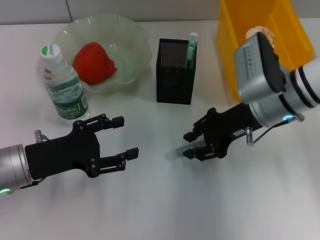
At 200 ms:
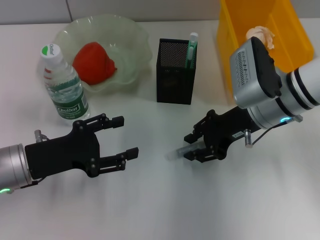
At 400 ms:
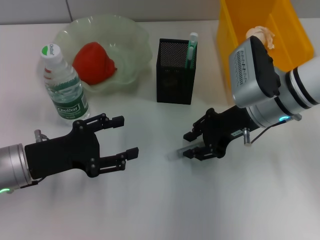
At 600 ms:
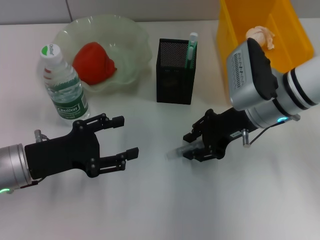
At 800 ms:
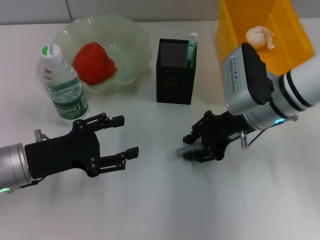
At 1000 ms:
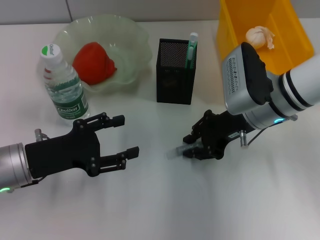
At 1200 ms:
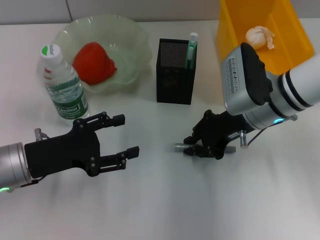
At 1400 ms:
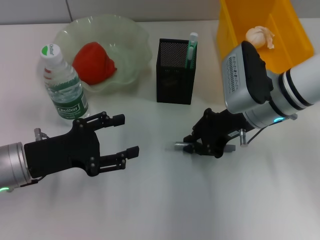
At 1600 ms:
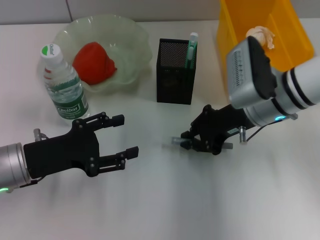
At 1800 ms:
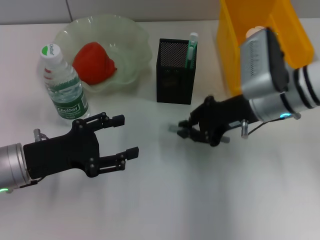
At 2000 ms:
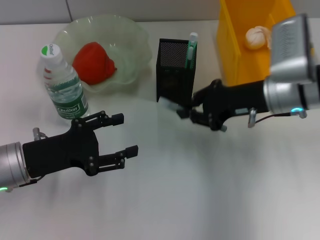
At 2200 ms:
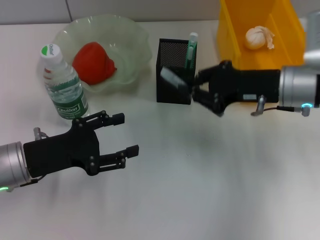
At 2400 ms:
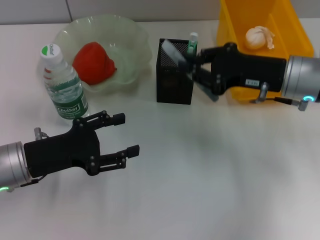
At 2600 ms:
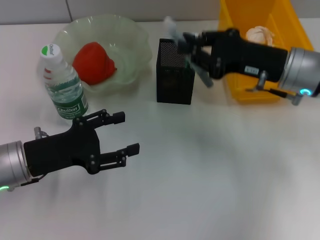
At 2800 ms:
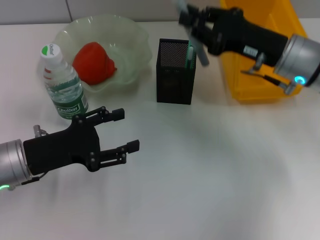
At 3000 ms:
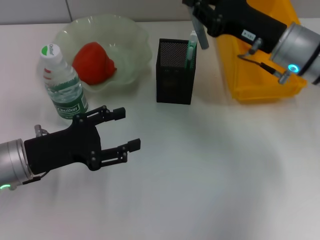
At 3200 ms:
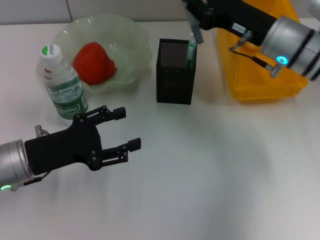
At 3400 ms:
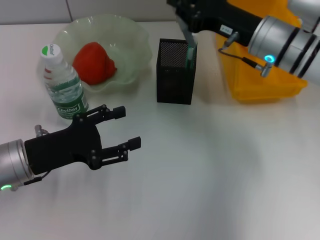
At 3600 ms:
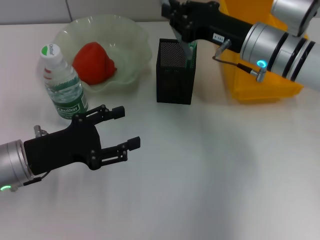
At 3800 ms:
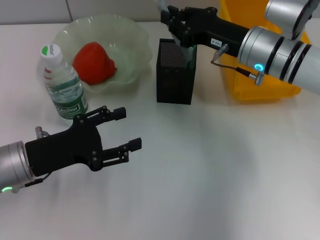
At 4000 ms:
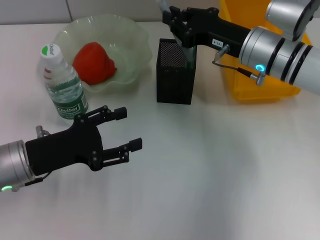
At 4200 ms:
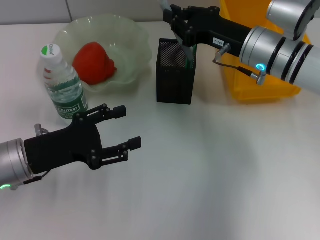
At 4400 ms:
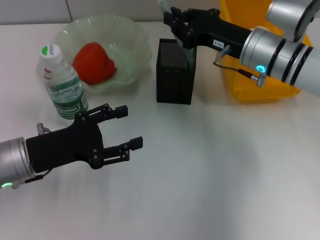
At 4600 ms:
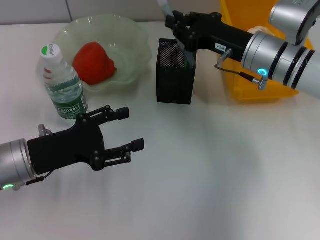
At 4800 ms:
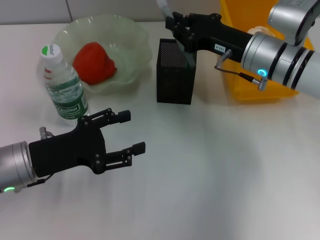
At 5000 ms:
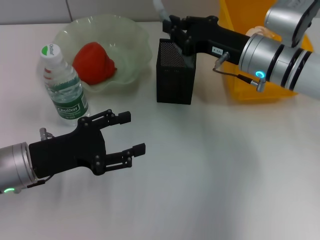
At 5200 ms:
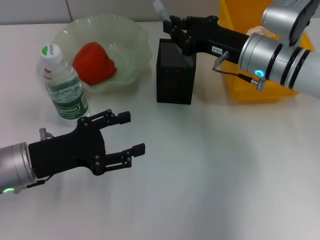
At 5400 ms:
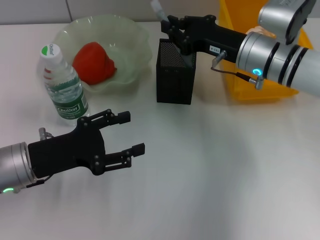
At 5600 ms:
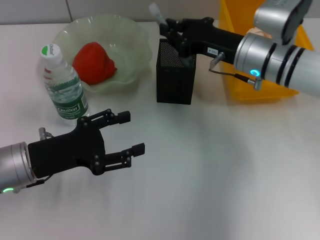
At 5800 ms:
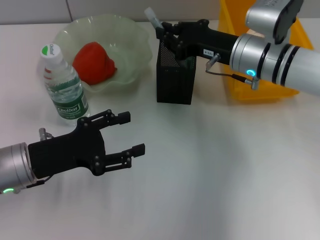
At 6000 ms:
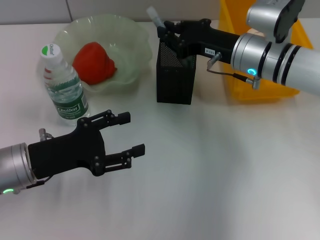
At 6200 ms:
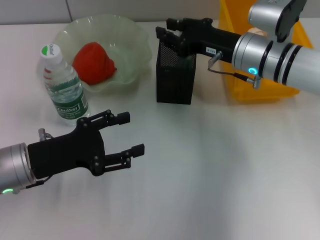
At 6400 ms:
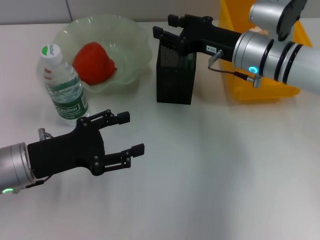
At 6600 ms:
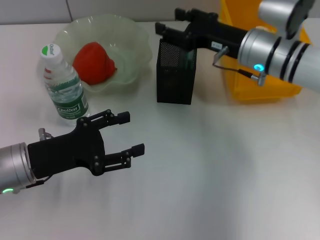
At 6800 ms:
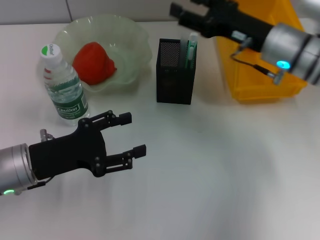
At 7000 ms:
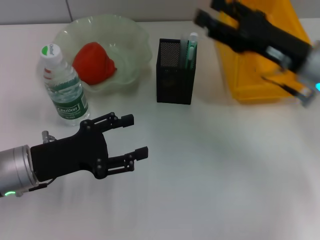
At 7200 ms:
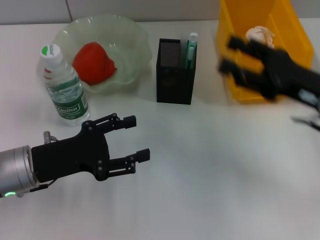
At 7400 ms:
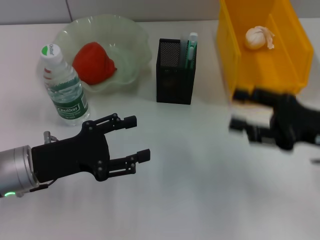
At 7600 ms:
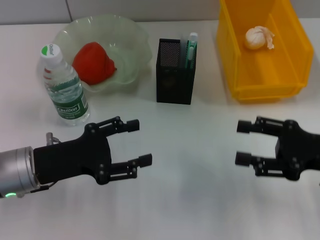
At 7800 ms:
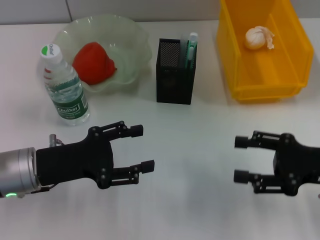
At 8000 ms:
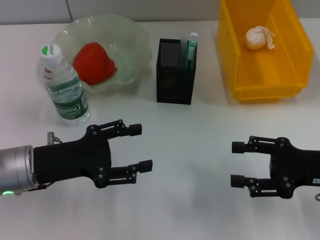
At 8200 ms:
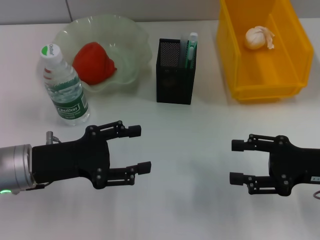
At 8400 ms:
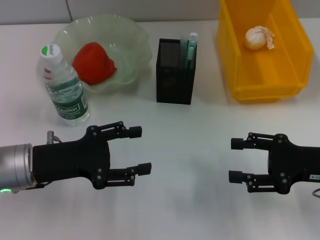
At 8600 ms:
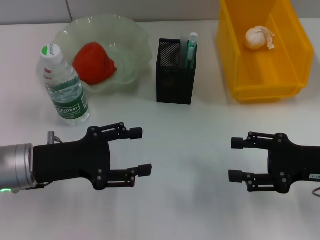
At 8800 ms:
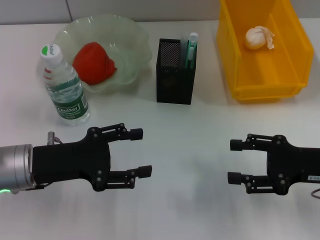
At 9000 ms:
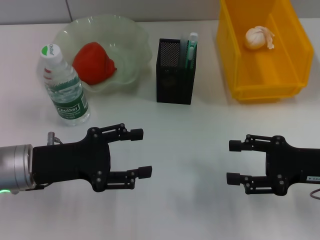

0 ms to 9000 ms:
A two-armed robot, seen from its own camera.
Step, 1400 ms to 6600 ms: Place the gray glue into the pen holder with the right hand.
0 ms to 1600 ms: The grippers make only small movements.
3000 ms to 6000 ms: There are only small adjustments of the grippers.
6000 ms to 7600 ms: The right gripper goes roughly 20 cm backward and to the right, and opens.
7600 ms to 9000 ms: There are only small adjustments of the grippers.
